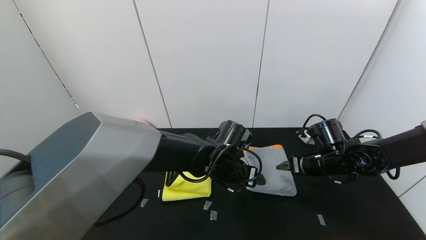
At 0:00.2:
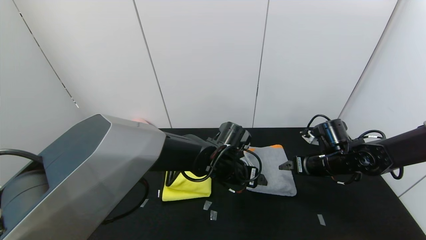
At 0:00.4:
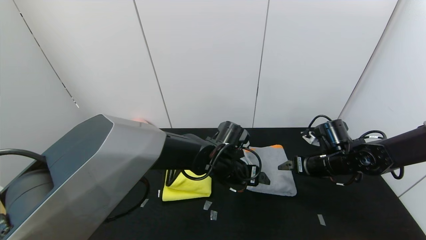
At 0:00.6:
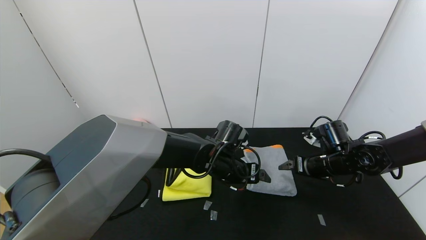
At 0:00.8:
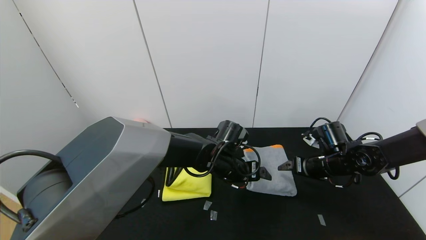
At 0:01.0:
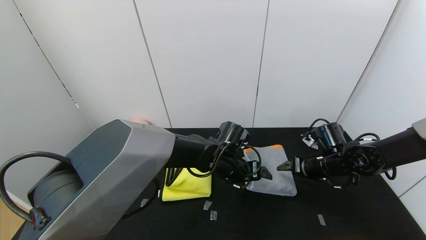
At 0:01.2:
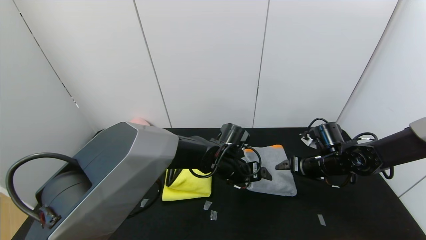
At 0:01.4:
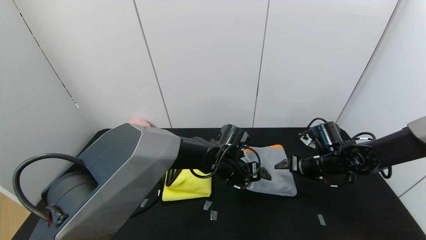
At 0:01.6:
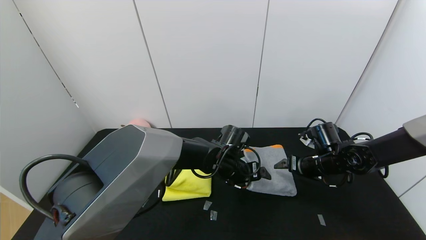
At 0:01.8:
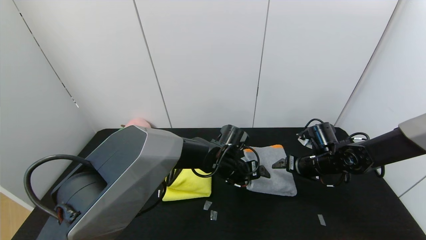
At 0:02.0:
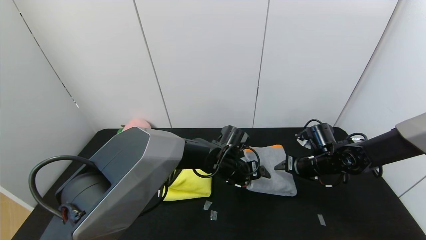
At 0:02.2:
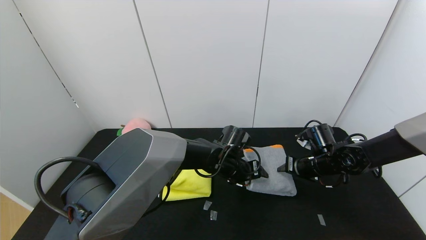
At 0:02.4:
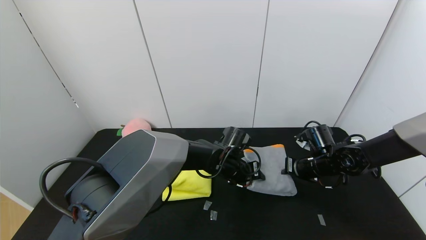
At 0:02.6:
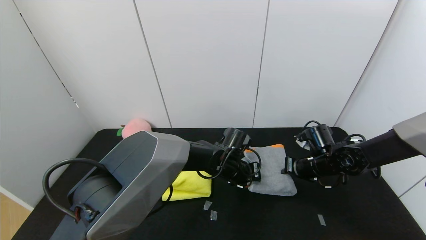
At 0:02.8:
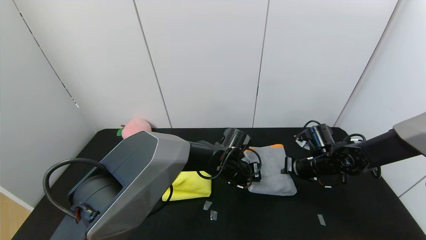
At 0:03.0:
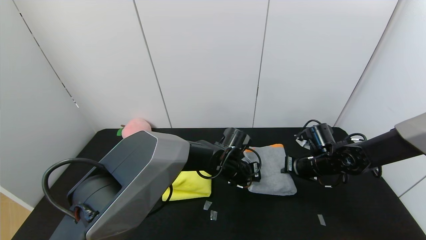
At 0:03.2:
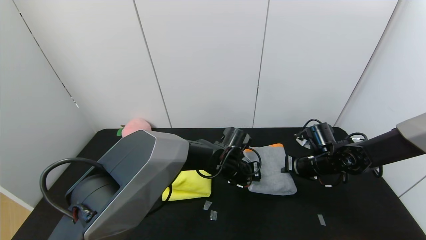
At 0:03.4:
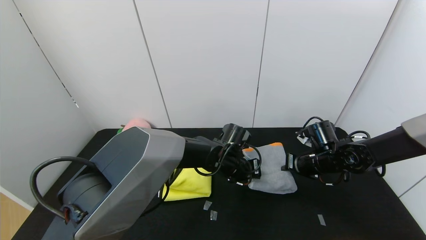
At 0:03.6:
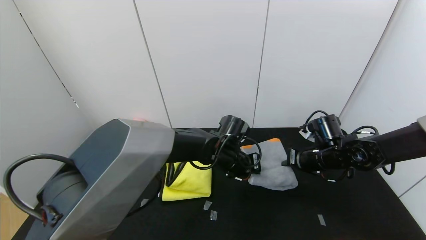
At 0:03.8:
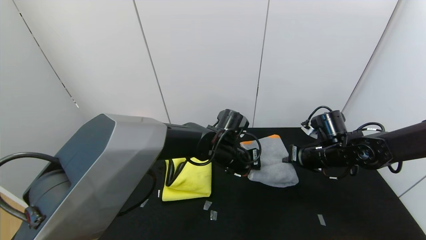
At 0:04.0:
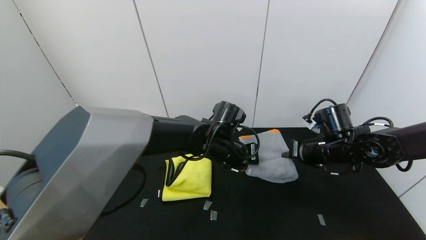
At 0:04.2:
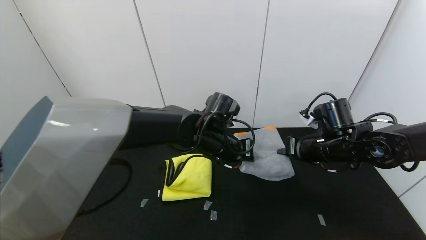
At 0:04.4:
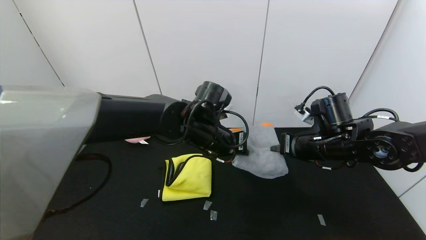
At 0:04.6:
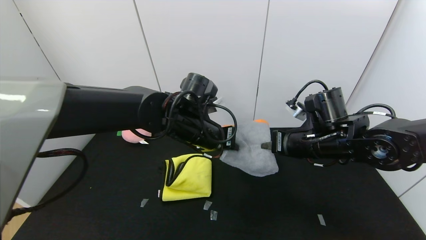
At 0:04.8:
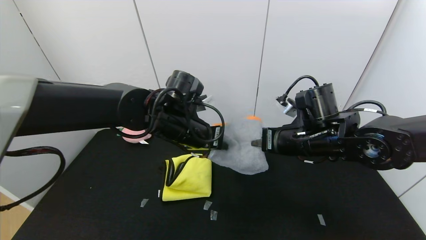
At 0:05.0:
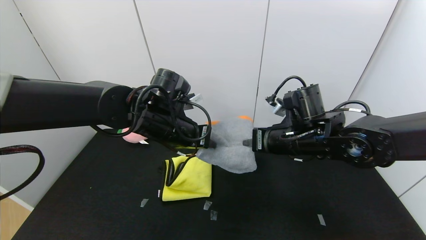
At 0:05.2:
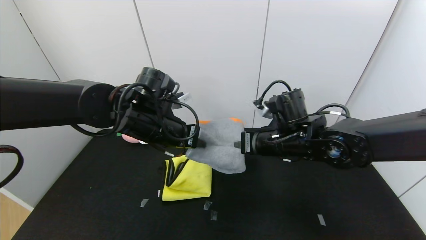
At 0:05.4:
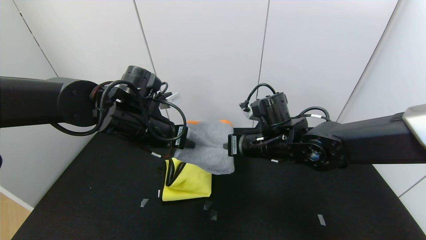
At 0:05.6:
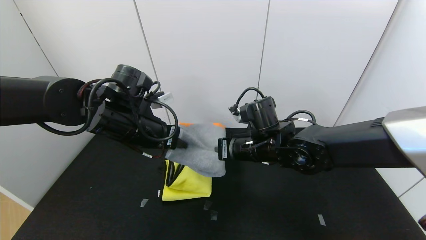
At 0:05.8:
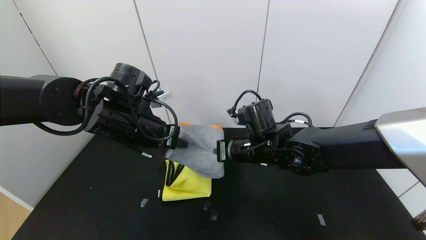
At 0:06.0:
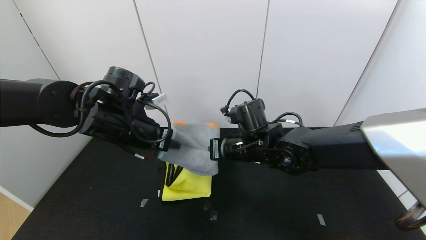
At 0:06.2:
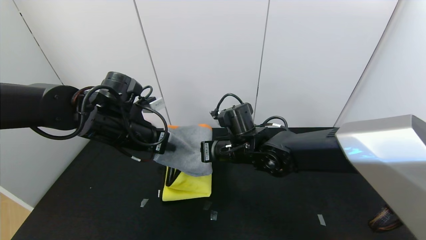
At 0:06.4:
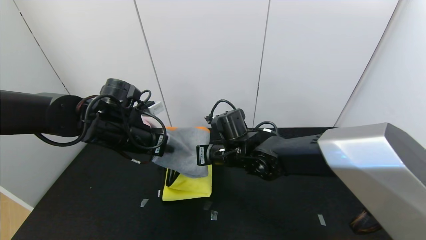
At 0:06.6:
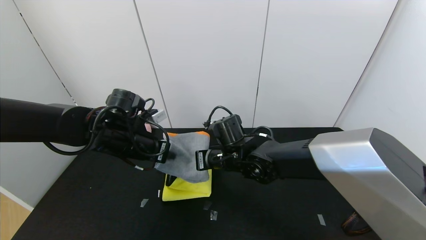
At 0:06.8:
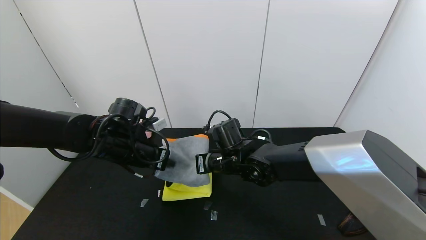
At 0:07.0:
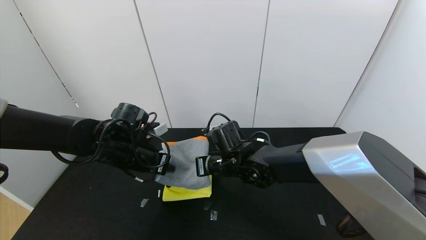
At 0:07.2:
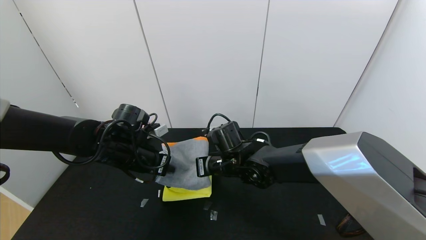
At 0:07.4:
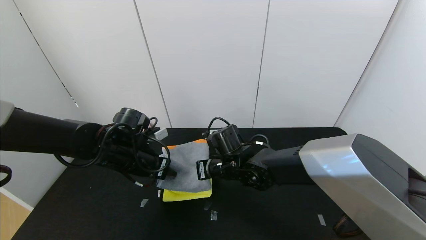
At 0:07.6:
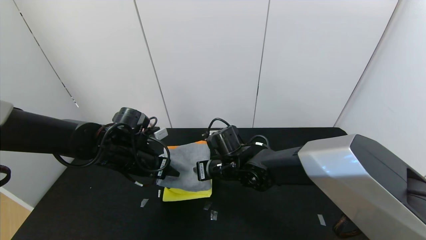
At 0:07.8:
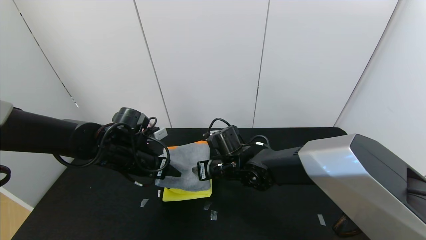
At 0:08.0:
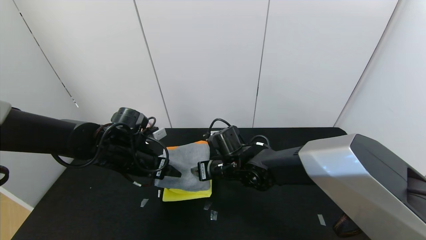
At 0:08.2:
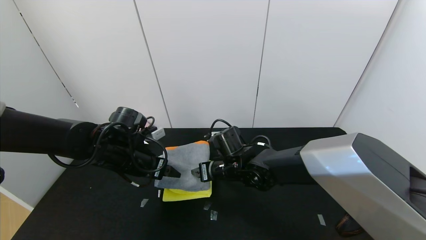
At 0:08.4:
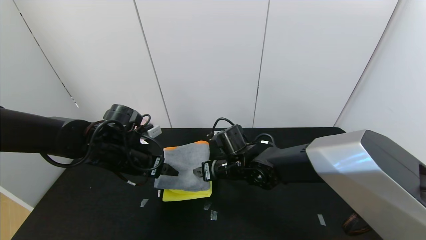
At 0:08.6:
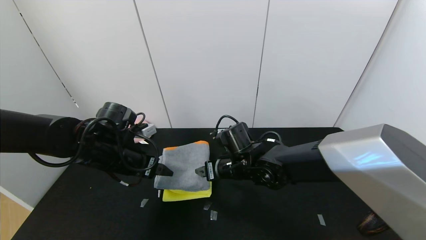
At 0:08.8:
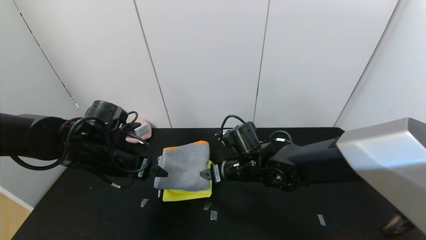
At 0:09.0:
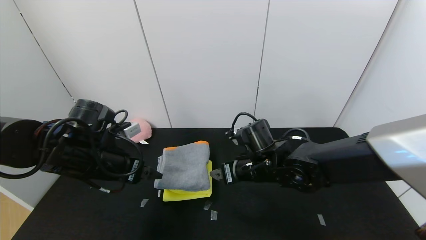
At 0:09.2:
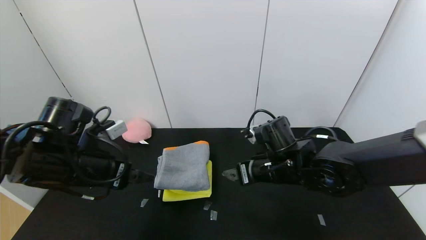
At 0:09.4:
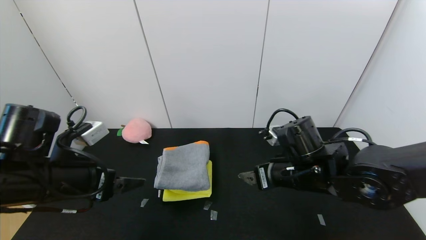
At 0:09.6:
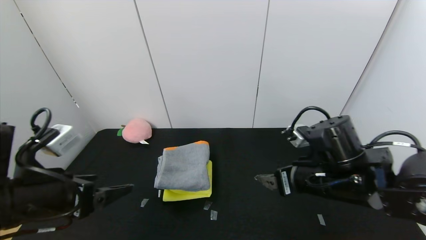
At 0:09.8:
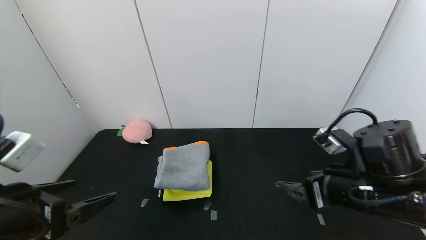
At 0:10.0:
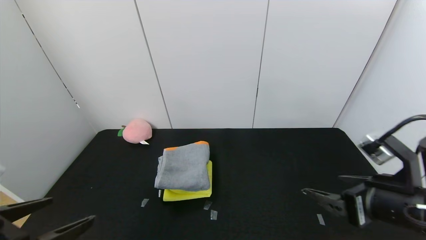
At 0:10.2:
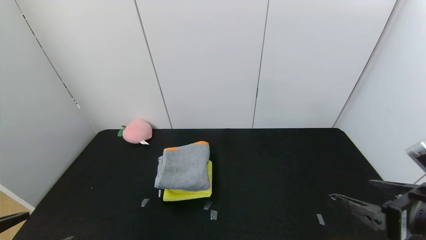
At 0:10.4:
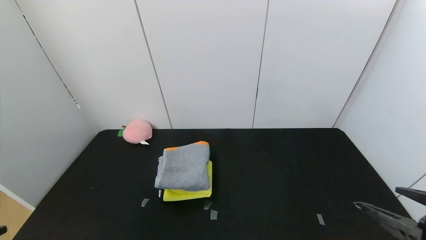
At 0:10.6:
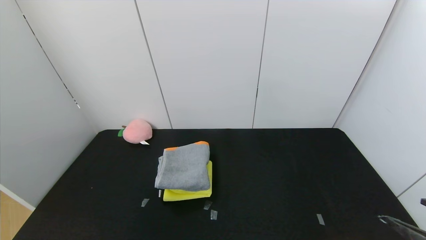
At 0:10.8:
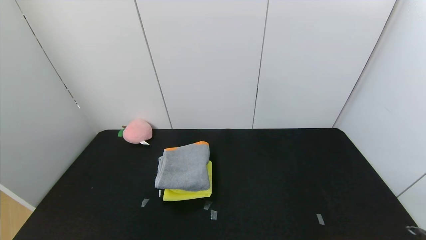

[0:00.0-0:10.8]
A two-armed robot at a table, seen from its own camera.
Task of the whole recording: Use the gripper to fold the yellow towel and grey towel in half twice,then put the yellow towel on the grey towel.
Step, 0:00.0 to 0:08.6: Place the grey towel on the yellow towel with the left gripper.
0:00.0 to 0:01.6: The left gripper moves about 5 cm.
0:01.6 to 0:03.0: The left gripper closes its fingers; the right gripper closes its fingers.
0:03.0 to 0:04.6: The right gripper travels upward, to the left and backward by roughly 15 cm; the left gripper moves upward and to the left, some 15 cm.
0:04.6 to 0:06.2: Both grippers move to the left, roughly 15 cm.
0:06.2 to 0:07.8: Both grippers move downward, some 5 cm. The right gripper opens. Meanwhile the left gripper opens its fingers.
0:07.8 to 0:09.2: The right gripper travels to the right, backward and upward by some 15 cm; the left gripper travels backward and upward by roughly 10 cm.
0:09.2 to 0:10.8: The left gripper is displaced backward by approximately 30 cm. The right gripper is displaced backward and to the right by roughly 35 cm.
